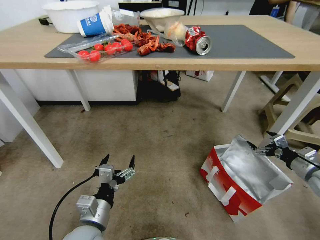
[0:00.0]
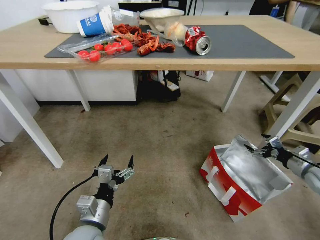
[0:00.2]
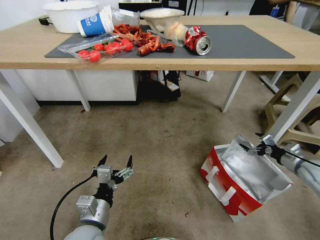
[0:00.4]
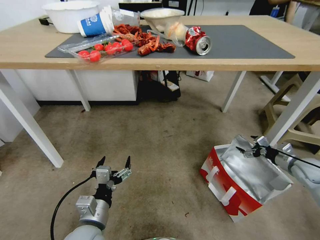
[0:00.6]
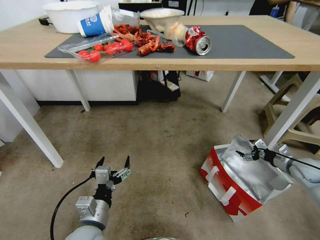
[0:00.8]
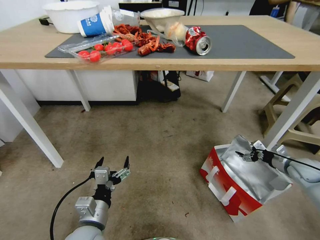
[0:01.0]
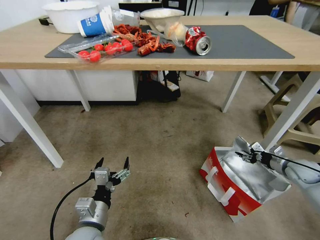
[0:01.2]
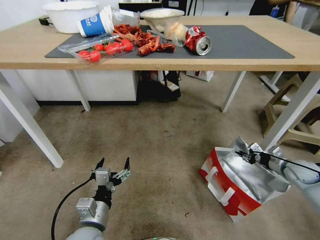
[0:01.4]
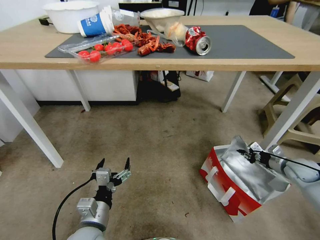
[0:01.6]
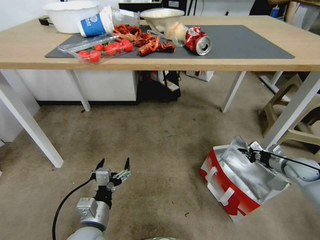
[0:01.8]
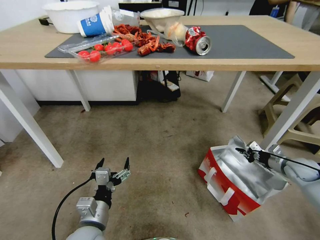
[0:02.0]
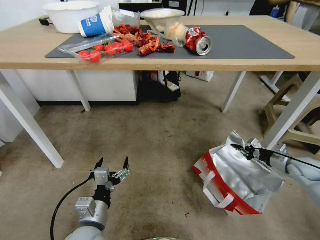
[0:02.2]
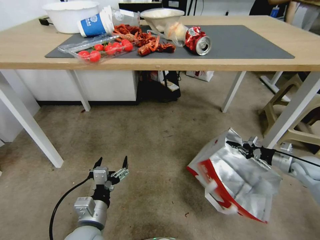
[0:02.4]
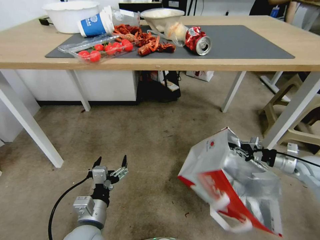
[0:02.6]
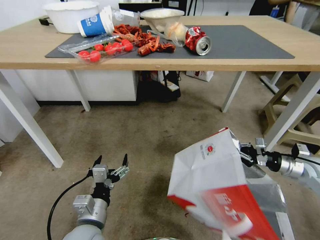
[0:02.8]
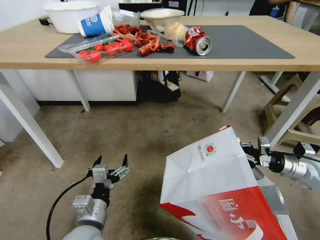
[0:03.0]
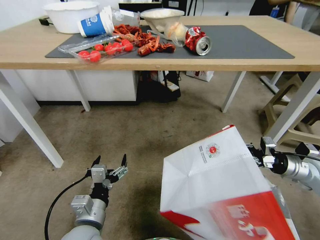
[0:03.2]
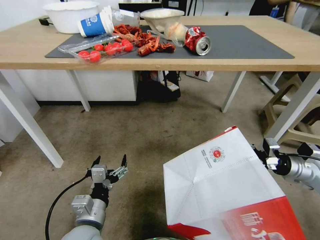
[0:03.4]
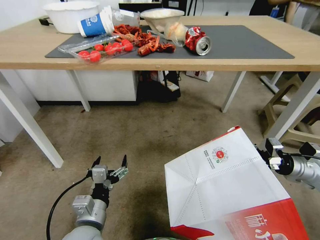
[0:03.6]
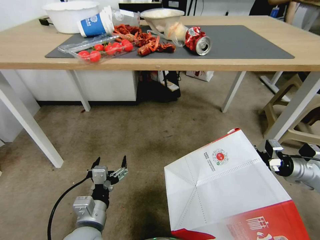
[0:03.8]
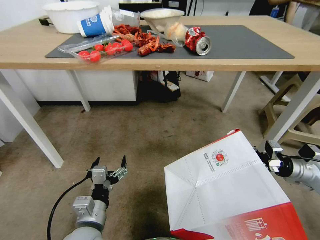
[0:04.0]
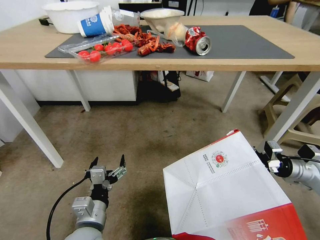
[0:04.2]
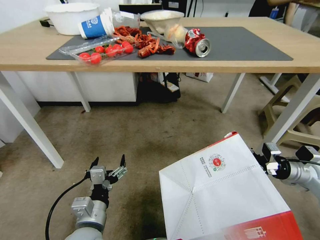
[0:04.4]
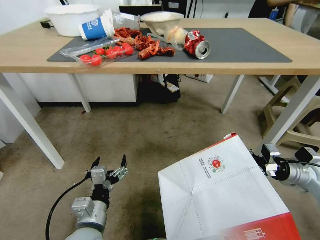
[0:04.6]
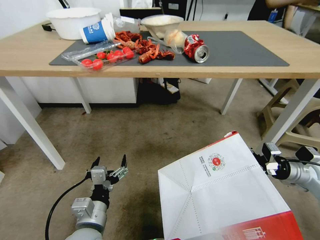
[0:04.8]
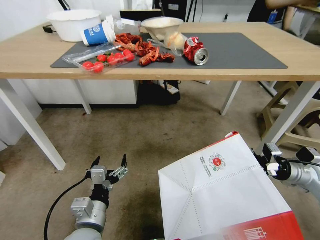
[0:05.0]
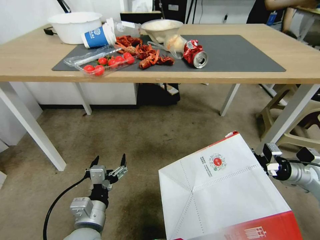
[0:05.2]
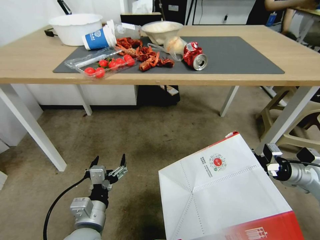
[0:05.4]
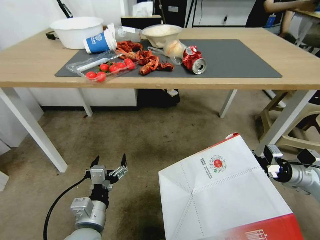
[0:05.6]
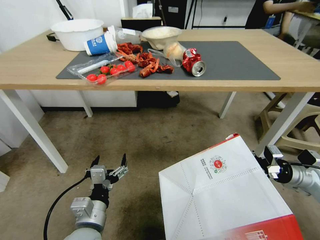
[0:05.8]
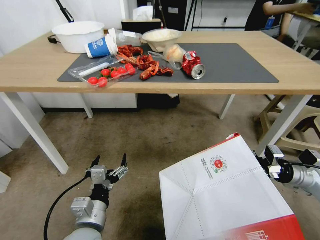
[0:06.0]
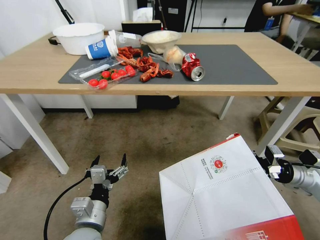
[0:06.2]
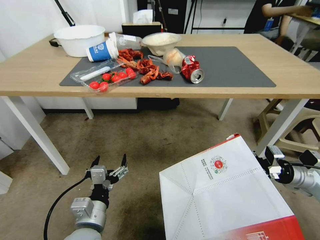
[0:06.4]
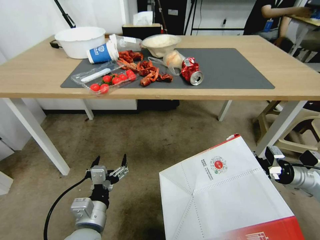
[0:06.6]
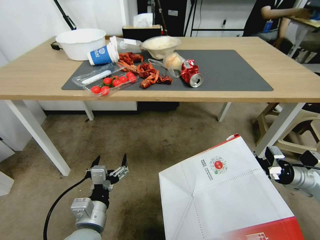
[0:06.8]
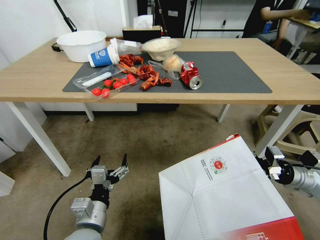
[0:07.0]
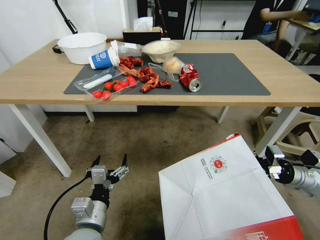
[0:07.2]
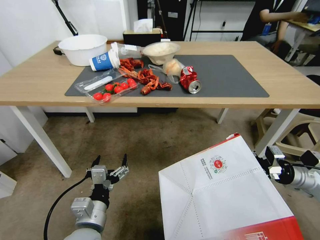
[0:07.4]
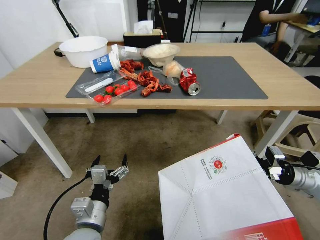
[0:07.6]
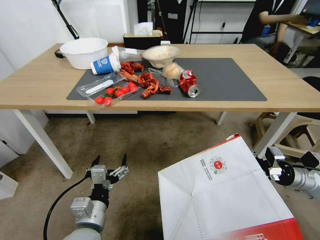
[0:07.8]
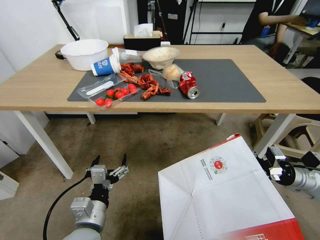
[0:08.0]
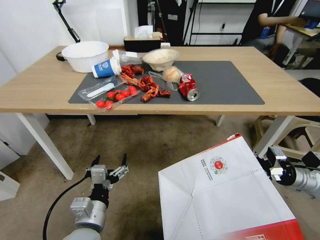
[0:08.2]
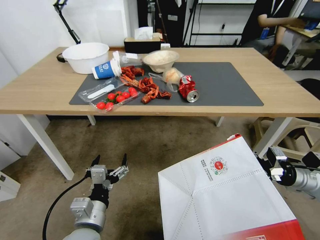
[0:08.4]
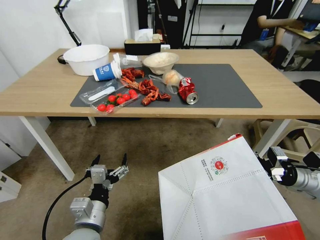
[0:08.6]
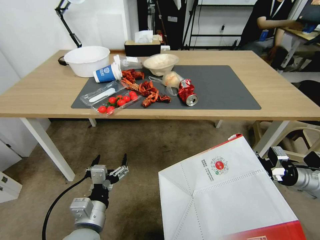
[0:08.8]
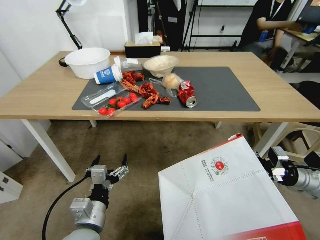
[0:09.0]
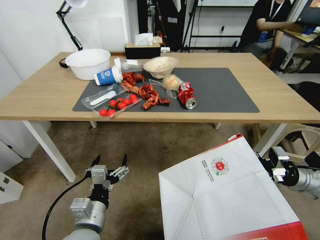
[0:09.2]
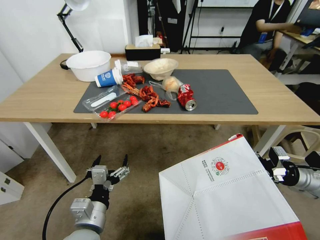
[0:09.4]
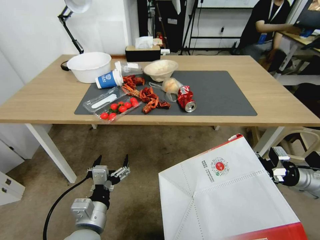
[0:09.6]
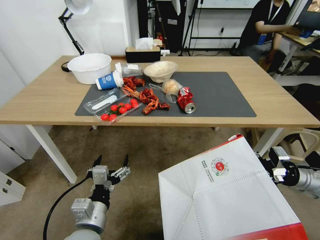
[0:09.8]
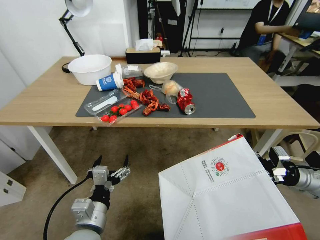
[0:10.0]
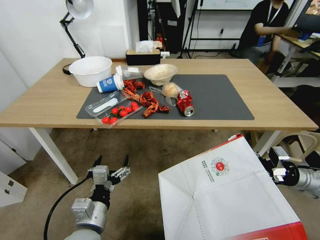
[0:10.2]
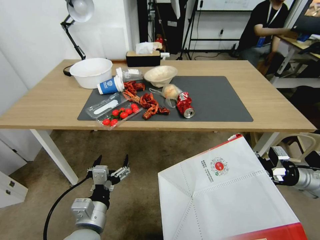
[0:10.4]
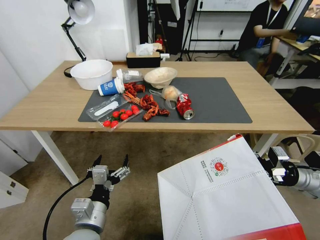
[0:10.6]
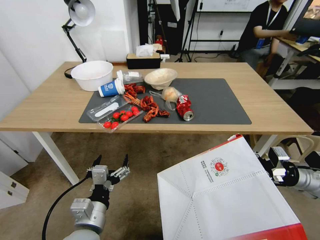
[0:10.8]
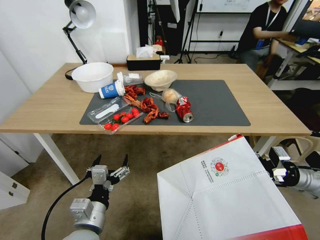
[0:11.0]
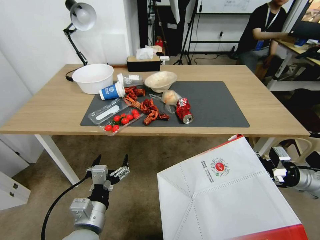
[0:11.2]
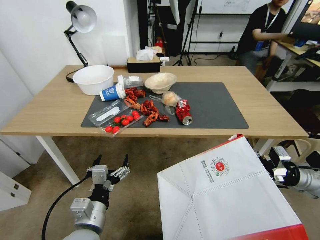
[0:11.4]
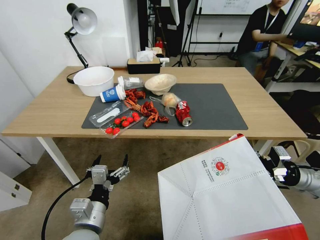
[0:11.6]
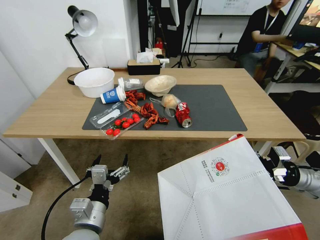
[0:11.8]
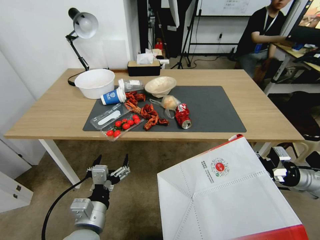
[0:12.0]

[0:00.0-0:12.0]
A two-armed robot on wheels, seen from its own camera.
Task of the whole recording: Pick up the food delivery bag from the floor and place it on the table.
0:00.0 to 0:01.6: The right gripper shifts some 10 cm forward and downward, and closes up.
0:01.6 to 0:03.0: The right gripper travels upward by about 10 cm.

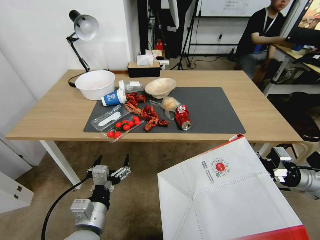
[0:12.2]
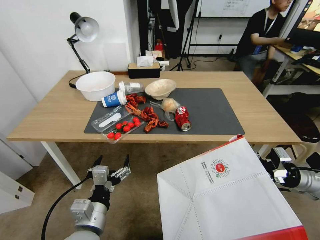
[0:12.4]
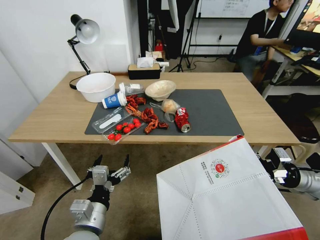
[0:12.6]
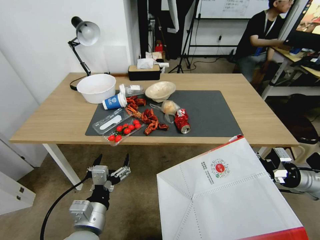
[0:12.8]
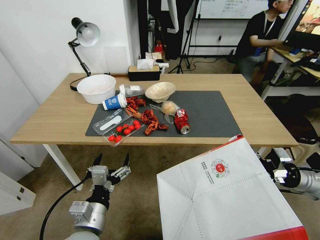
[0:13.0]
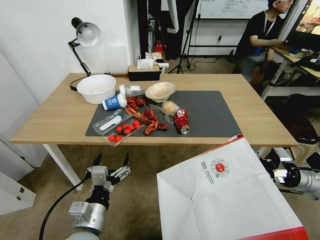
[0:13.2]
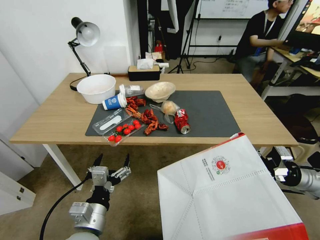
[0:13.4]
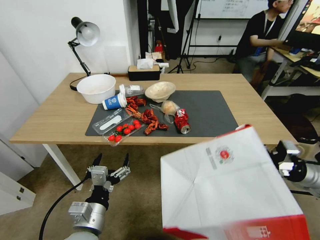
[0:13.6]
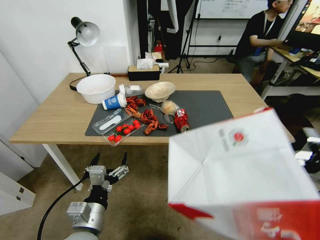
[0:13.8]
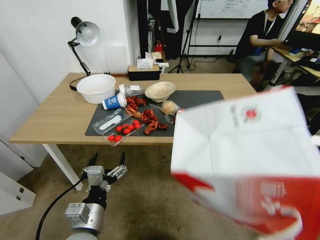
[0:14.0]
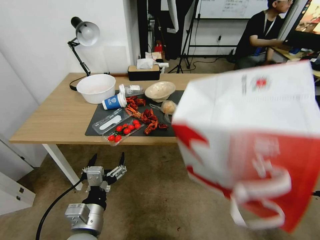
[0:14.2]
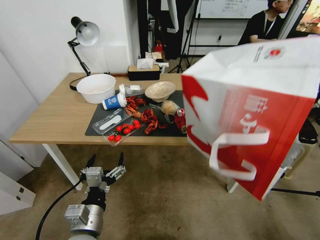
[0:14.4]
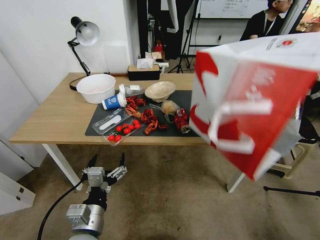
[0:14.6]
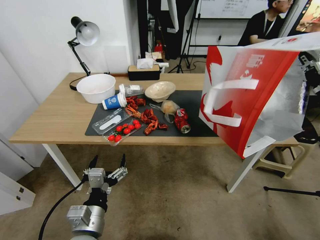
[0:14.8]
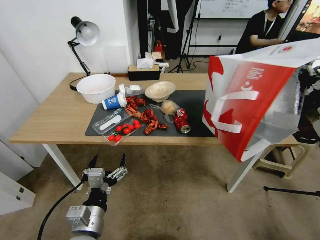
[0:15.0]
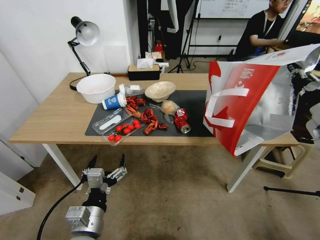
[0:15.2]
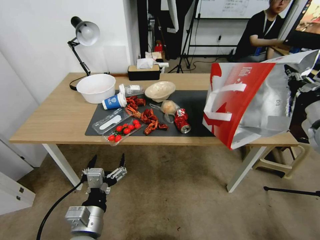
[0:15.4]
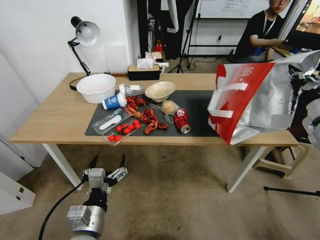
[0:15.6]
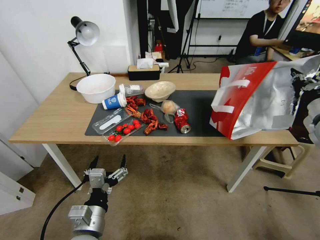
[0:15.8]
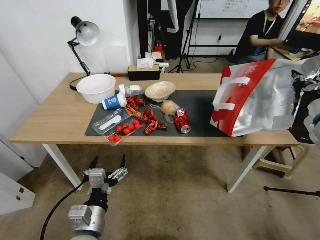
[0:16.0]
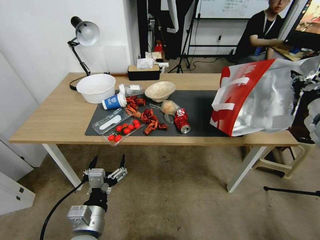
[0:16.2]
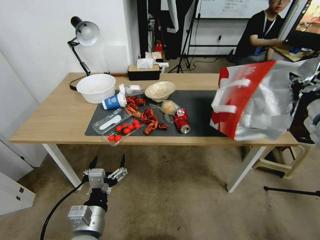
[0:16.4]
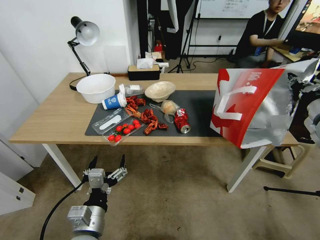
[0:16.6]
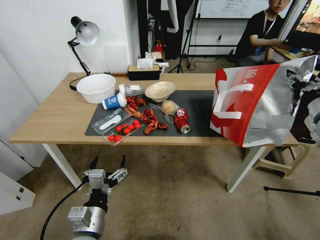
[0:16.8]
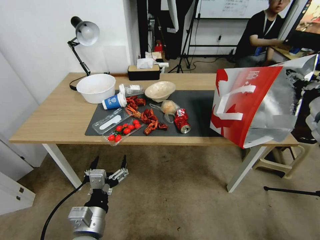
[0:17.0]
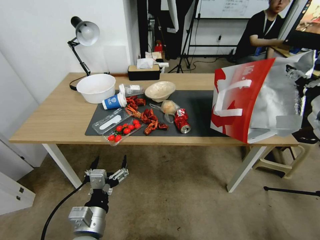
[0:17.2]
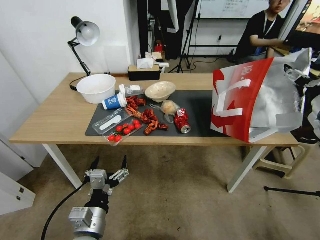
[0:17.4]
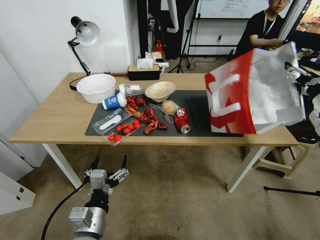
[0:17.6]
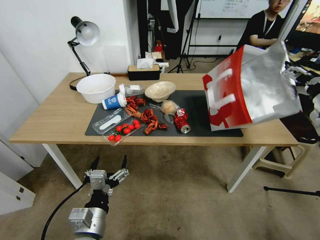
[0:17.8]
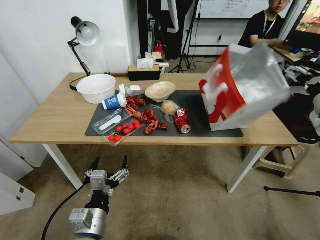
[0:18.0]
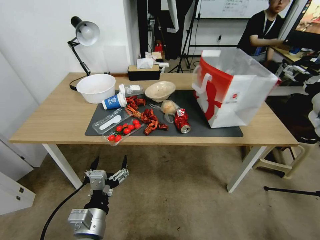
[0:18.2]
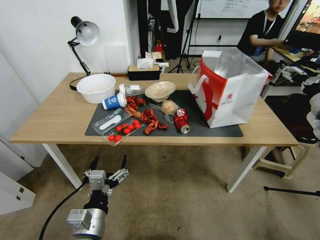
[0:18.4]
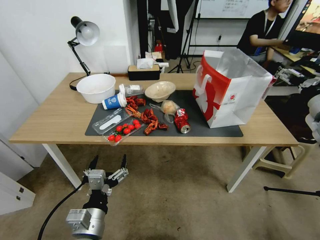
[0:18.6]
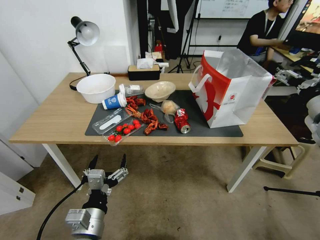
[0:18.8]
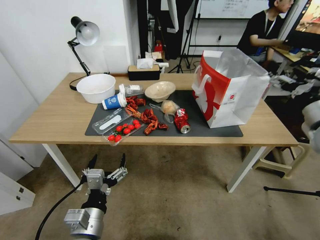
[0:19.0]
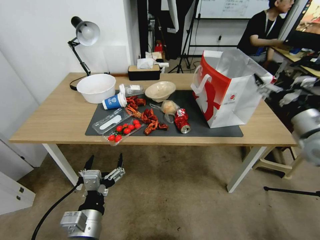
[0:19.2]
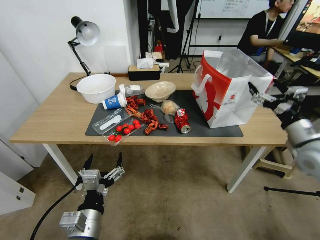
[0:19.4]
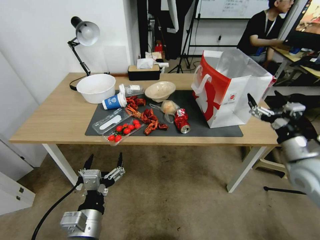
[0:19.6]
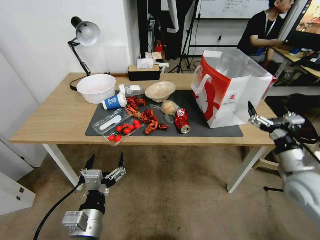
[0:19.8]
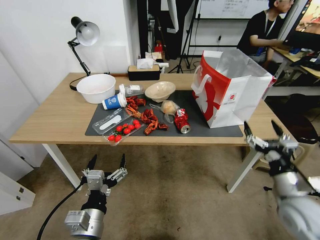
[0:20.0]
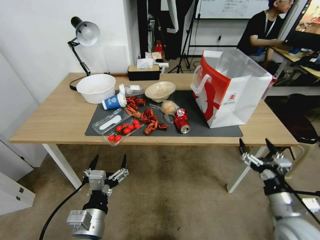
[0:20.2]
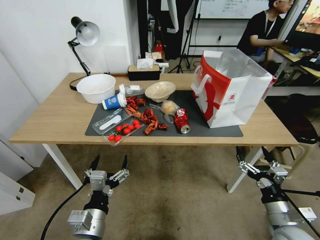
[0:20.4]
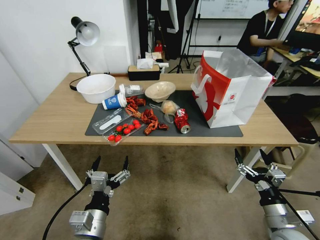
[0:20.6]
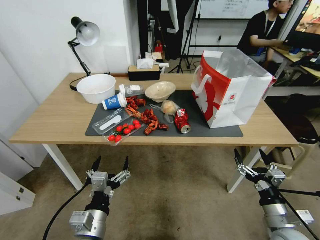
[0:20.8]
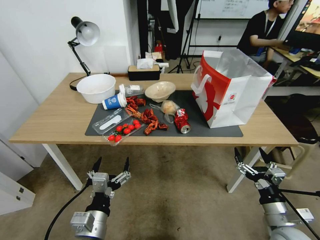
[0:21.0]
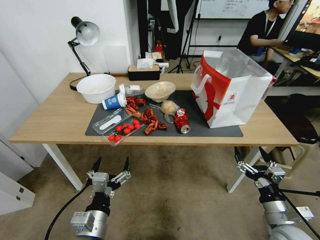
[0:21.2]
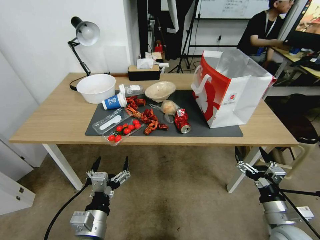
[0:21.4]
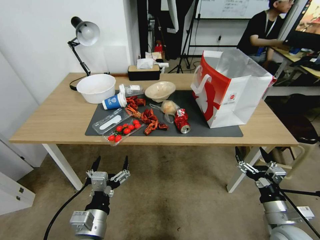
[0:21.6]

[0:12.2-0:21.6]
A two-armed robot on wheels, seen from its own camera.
Task of the whole recording: Pick up the food delivery bag from the floor and place it on the table.
0:13.8 to 0:15.4: The right gripper shifts roughly 10 cm upward and forward.
0:15.4 to 0:17.0: The right gripper opens its fingers.
0:17.0 to 0:18.4: The right gripper opens up.
0:18.4 to 0:20.0: The right gripper shifts approximately 25 cm downward, backward and to the left.
0:20.0 to 0:21.6: The right gripper travels downward and backward by approximately 10 cm.
